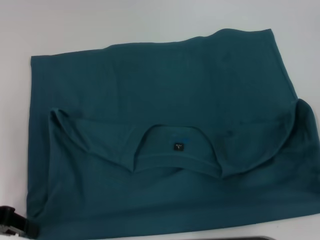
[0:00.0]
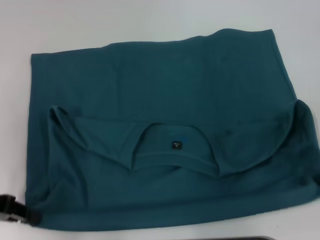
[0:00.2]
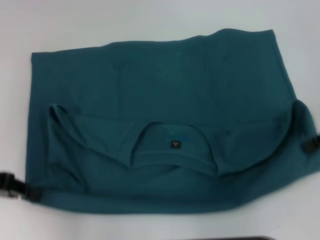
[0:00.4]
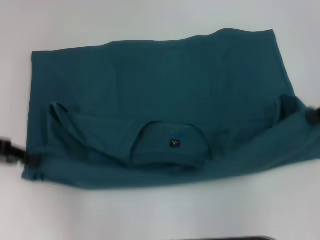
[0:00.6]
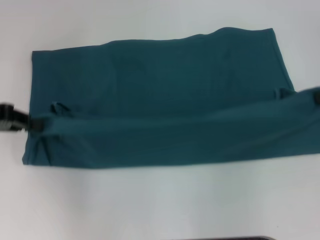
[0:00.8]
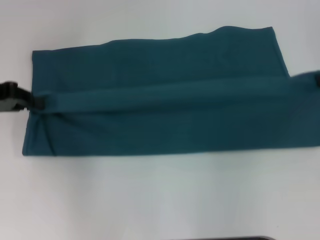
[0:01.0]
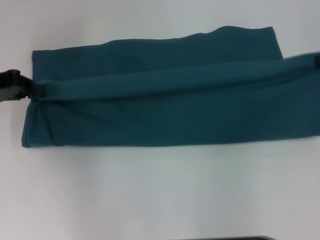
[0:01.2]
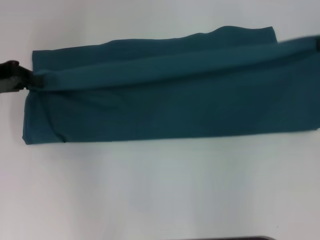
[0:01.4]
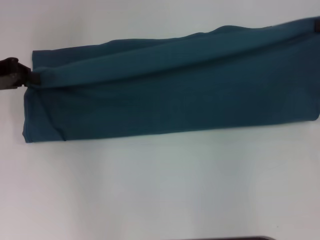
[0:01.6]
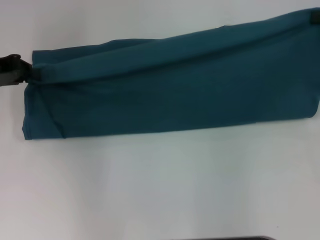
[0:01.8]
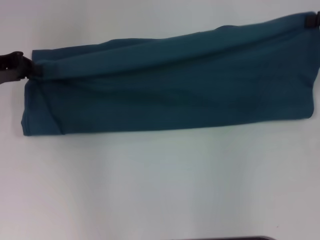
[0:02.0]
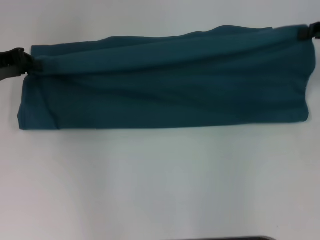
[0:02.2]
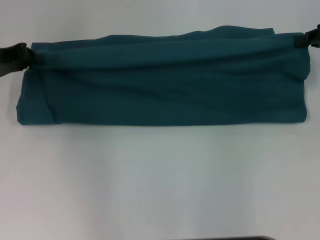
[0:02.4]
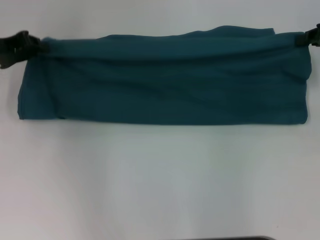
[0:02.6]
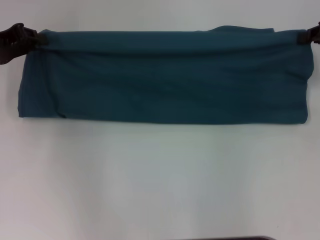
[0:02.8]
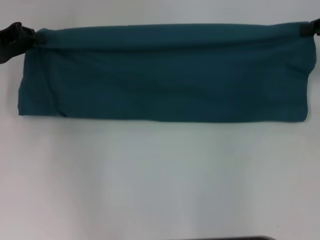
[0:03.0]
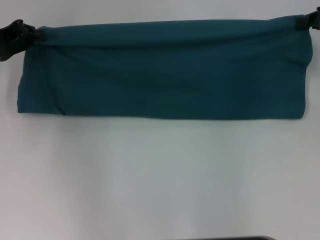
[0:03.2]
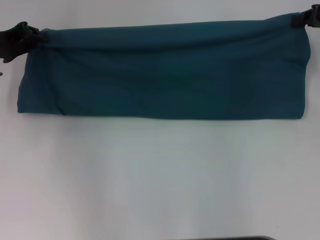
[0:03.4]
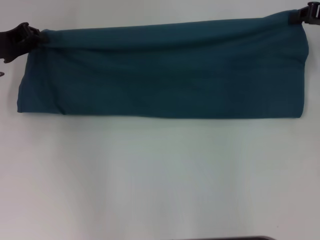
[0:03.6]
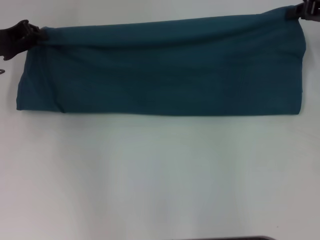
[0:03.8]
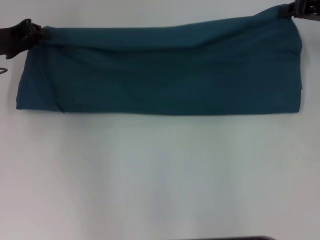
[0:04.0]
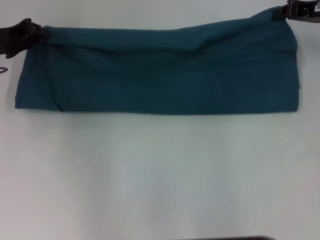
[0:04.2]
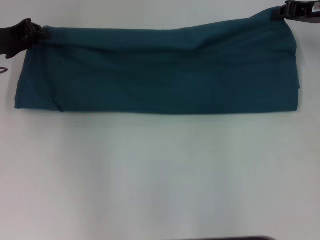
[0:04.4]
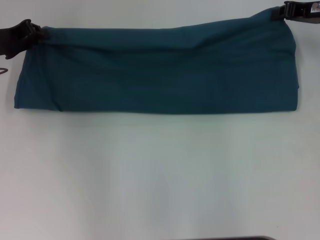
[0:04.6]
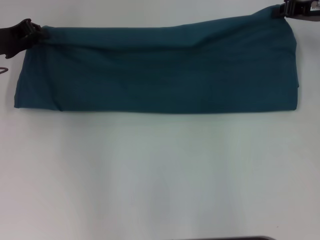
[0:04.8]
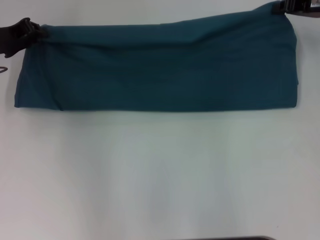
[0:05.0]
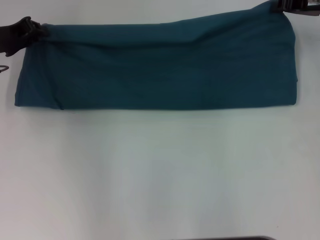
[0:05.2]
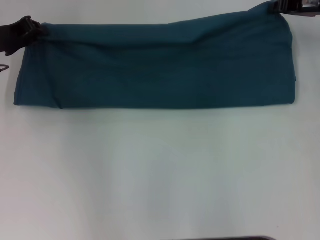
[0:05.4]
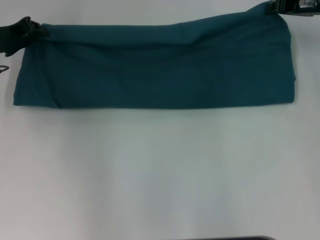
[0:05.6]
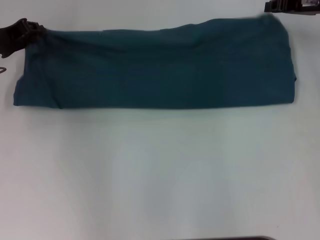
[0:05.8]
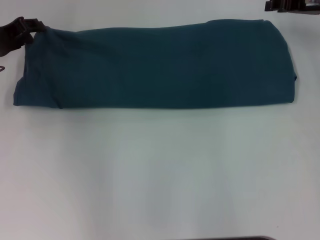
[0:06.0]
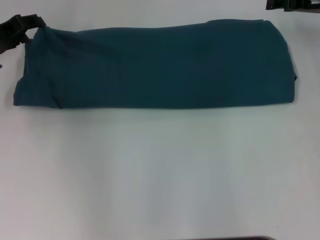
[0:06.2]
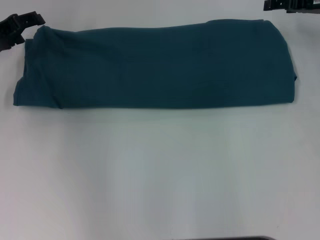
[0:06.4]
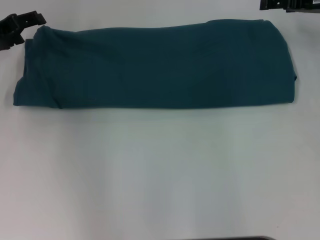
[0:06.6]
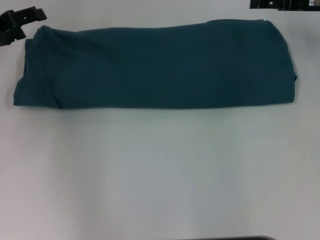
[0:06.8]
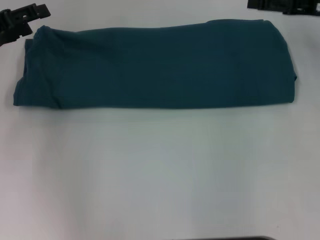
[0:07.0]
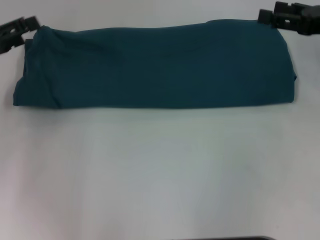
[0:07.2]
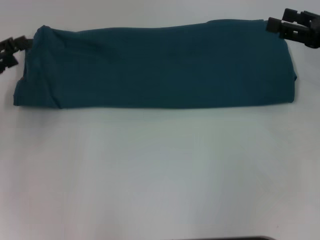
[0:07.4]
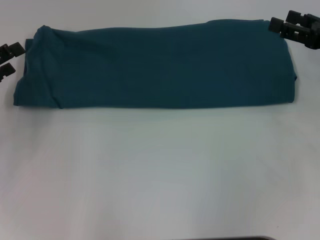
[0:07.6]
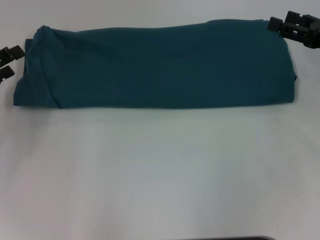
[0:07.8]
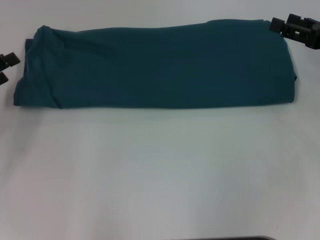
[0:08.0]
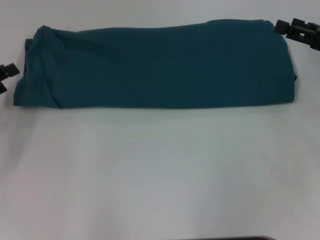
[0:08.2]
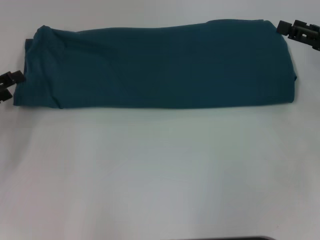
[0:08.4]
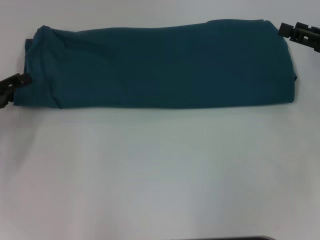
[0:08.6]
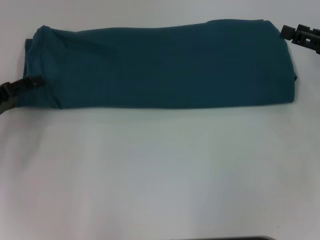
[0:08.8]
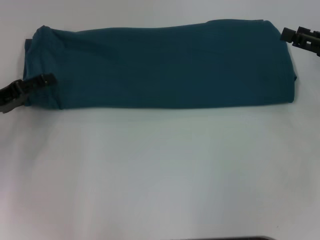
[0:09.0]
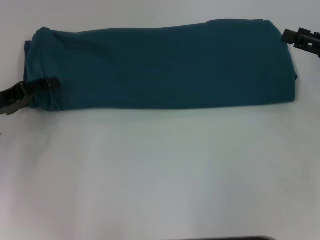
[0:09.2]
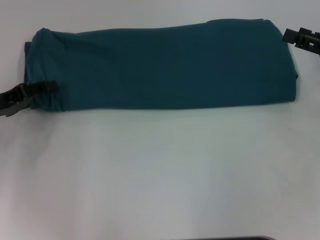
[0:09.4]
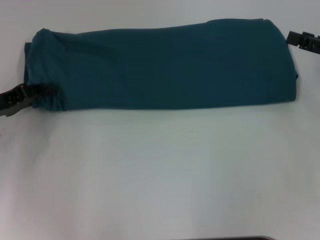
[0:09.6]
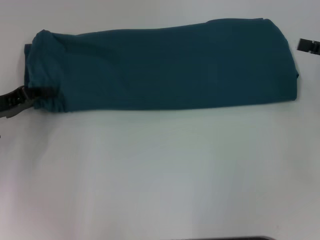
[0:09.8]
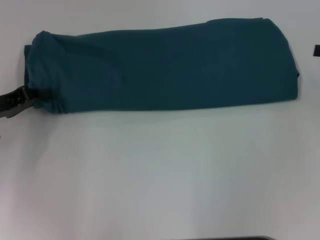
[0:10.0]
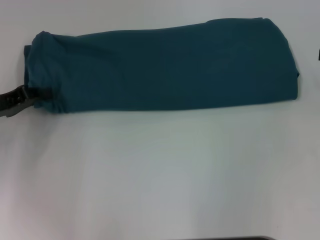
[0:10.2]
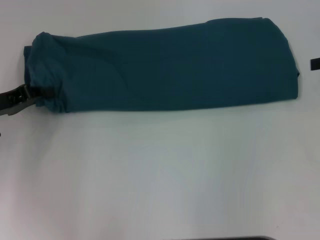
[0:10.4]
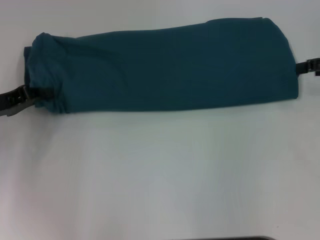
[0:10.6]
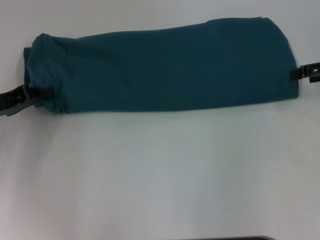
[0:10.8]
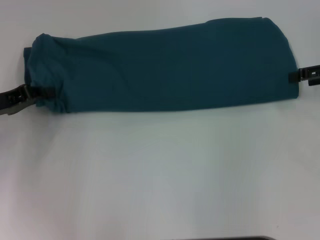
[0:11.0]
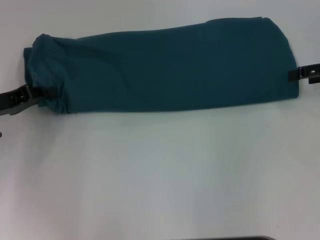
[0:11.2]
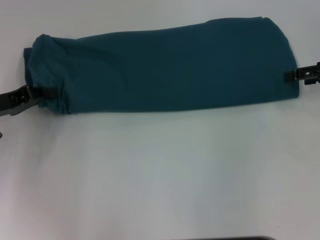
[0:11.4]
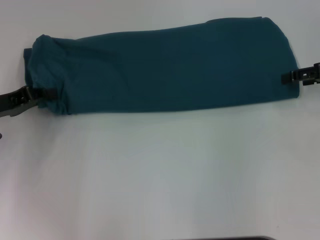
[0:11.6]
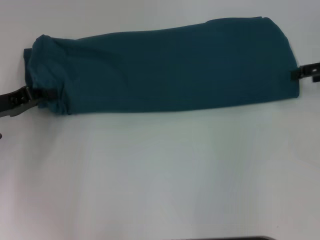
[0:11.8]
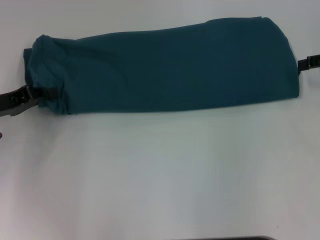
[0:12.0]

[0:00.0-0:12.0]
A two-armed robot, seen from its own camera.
Step, 0:00.0 to 0:06.2: Fold the clothes to the left.
Step, 0:00.0 to 0:06.2: Fold the clothes to the right.
0:00.0 to 0:01.6: The grippers both shift forward and upward by roughly 10 cm.
0:01.6 to 0:03.0: There are only small adjustments of the grippers.
0:03.0 to 0:04.4: The right gripper moves roughly 5 cm.
0:04.4 to 0:06.0: The grippers make only small movements.
0:06.0 to 0:07.6: The right gripper heads backward, covering some 10 cm, and opens. The left gripper goes approximately 10 cm backward and to the left, and opens.
0:07.6 to 0:09.0: The grippers make only small movements.
0:09.0 to 0:10.4: The right gripper is displaced upward by about 5 cm, while the left gripper closes.
0:10.4 to 0:12.0: The grippers stay close to where they were, moving slightly.

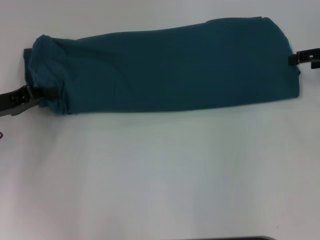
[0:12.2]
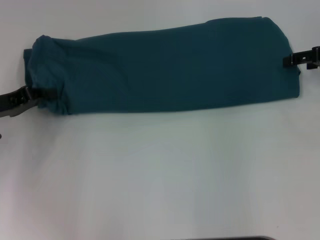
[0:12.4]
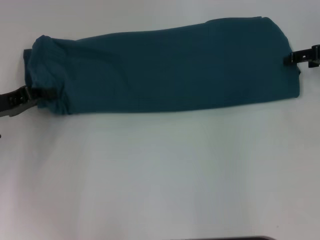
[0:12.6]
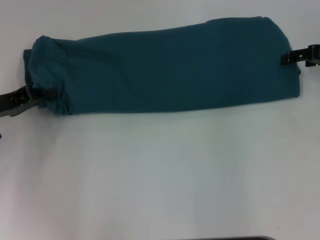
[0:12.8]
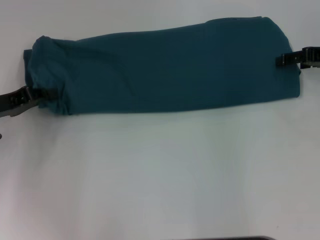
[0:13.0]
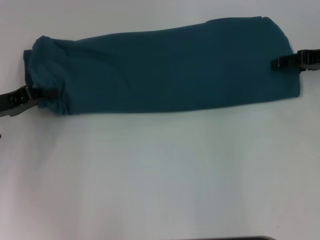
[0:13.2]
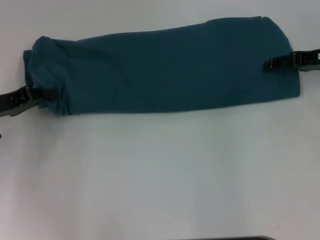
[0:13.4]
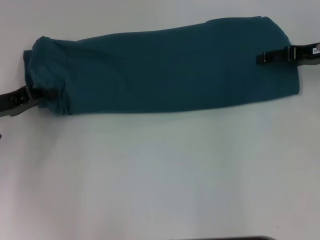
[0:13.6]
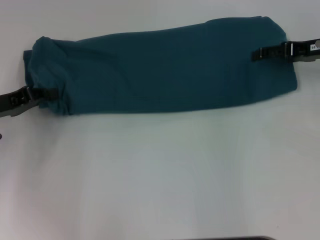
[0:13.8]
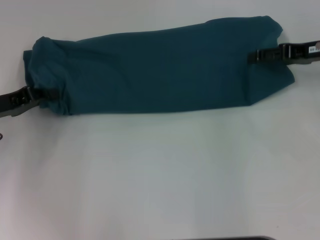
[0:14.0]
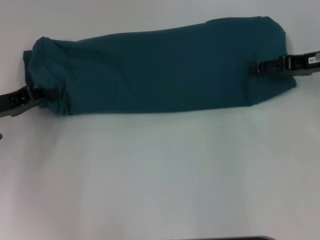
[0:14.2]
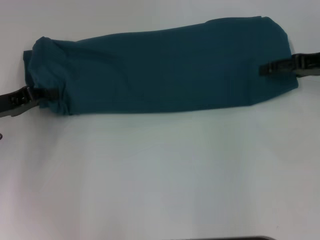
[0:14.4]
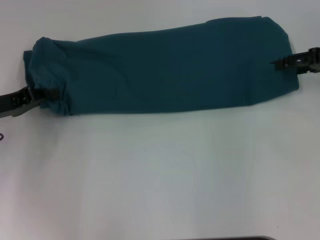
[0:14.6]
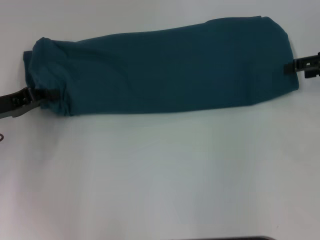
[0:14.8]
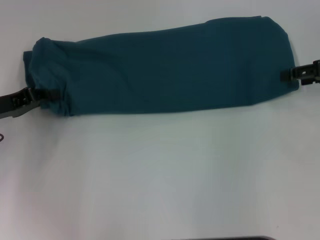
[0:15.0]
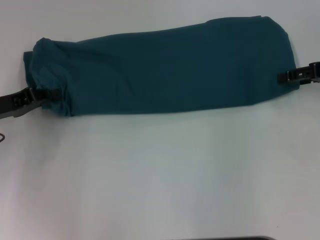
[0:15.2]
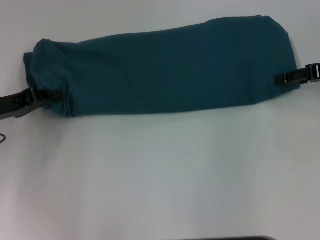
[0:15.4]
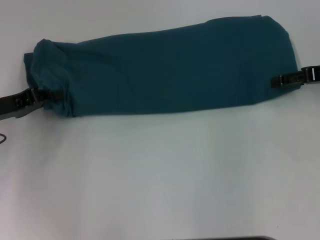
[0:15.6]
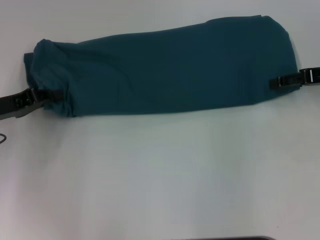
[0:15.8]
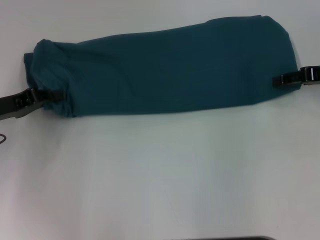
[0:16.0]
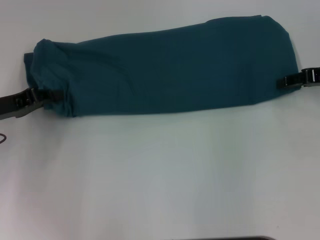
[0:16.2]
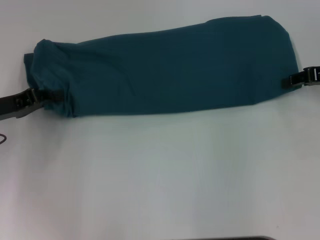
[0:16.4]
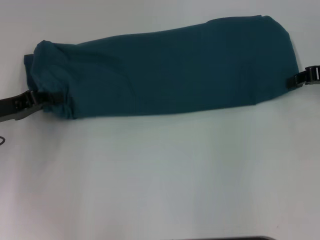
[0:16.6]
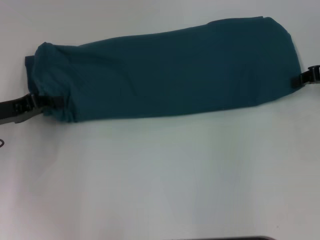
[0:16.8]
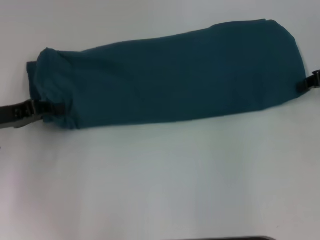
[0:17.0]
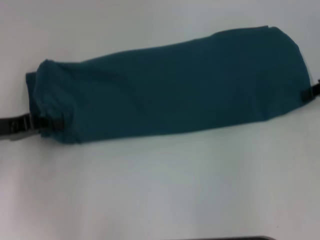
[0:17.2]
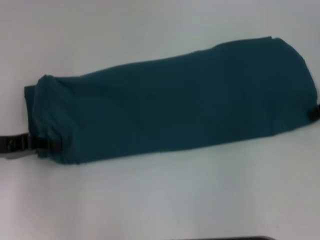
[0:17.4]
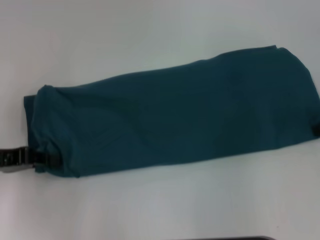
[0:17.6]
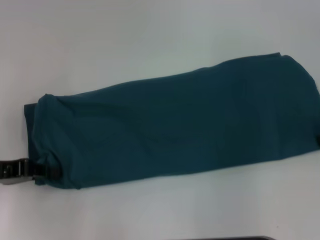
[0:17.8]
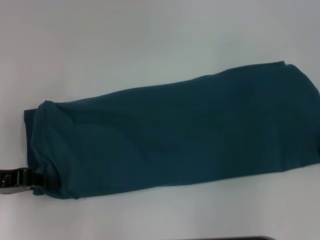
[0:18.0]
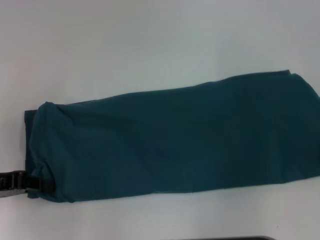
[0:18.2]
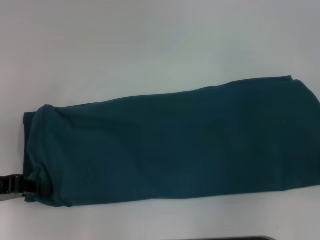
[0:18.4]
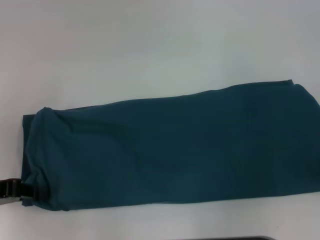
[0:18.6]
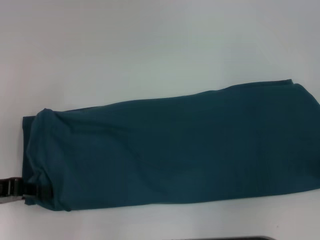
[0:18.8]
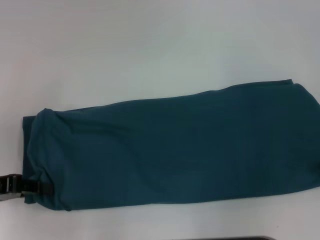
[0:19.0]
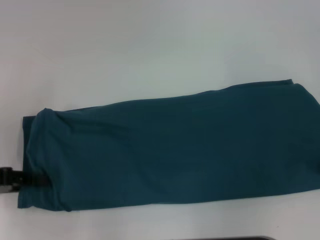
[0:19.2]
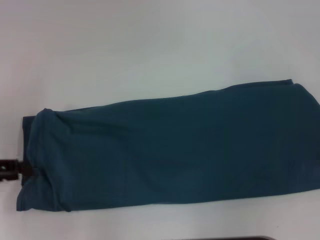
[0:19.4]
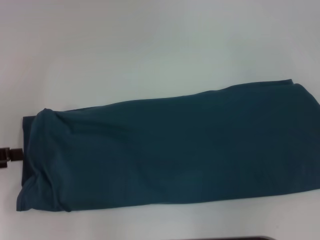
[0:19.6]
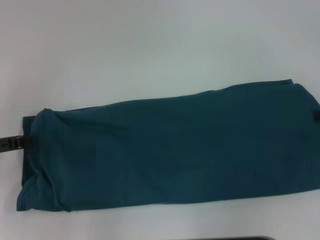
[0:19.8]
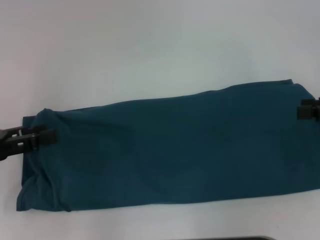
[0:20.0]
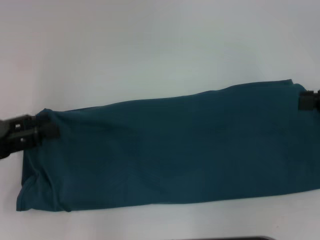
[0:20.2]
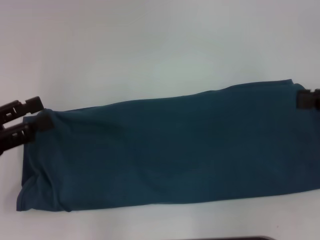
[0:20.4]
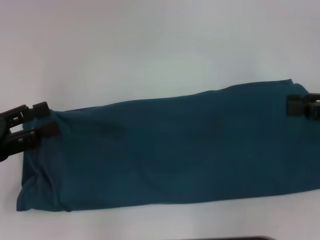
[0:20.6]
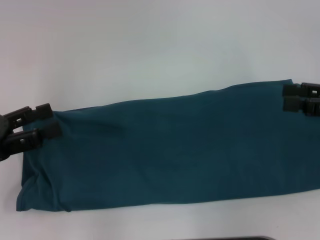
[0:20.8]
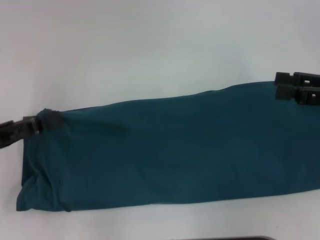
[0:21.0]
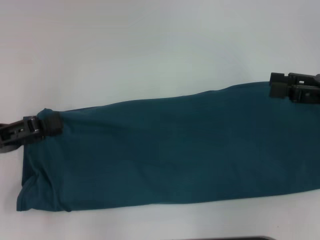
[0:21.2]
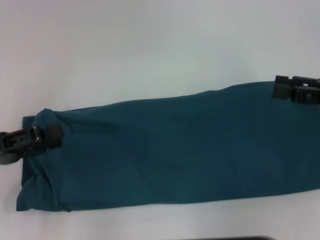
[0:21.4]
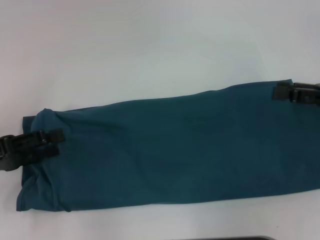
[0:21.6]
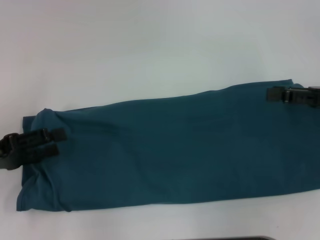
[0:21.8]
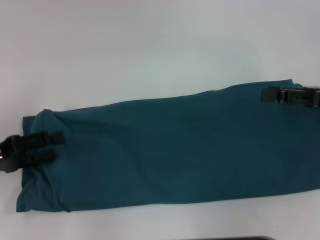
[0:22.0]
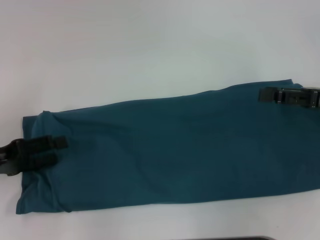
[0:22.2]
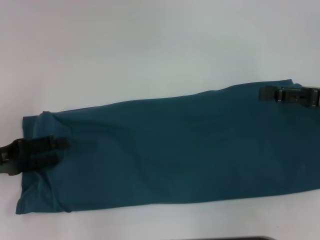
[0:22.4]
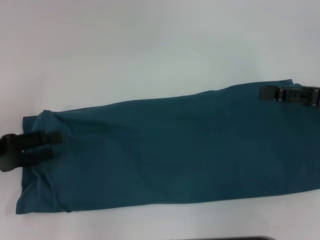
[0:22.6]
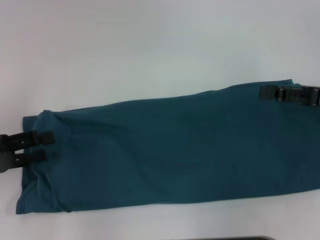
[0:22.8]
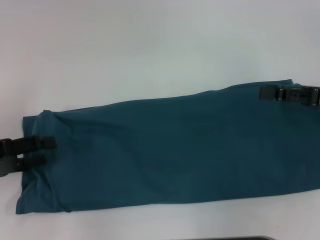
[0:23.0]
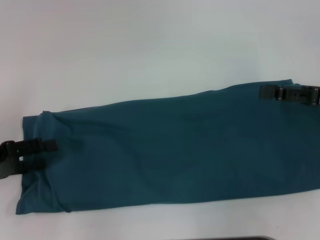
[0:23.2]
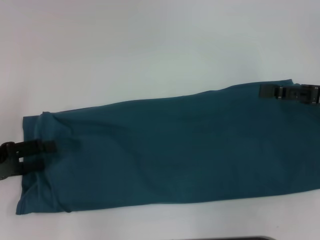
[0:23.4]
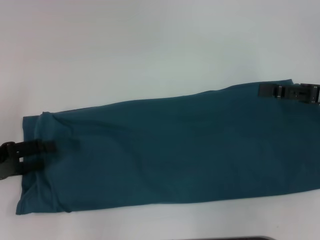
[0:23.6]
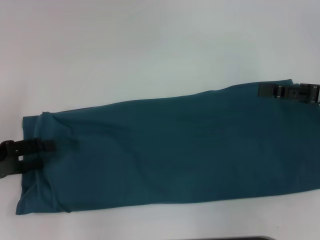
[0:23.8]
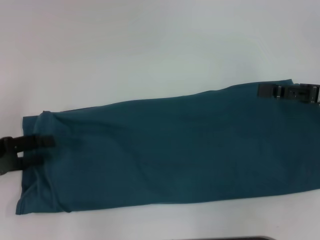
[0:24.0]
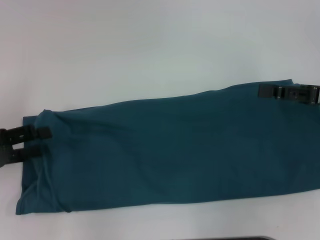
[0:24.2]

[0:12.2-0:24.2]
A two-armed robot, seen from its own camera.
Step, 0:12.2 to 0:19.4: Pull the clothes with your left hand.
Step, 0:12.2 to 0:19.4: Pull the clothes with your right hand.
0:12.2 to 0:13.8: The right gripper moves about 5 cm.
0:13.8 to 0:15.2: The grippers move only a little.
0:15.2 to 0:16.6: The right gripper closes its fingers.
0:16.6 to 0:18.2: The two grippers go about 10 cm backward.
0:18.2 to 0:19.8: The left gripper shifts by about 5 cm, and opens its fingers, while the right gripper opens.
0:19.8 to 0:21.2: The right gripper ends up about 5 cm from where it was.
